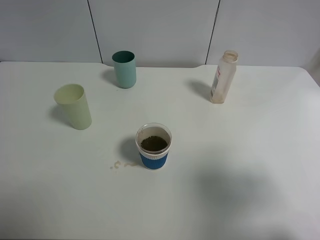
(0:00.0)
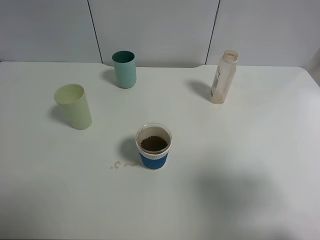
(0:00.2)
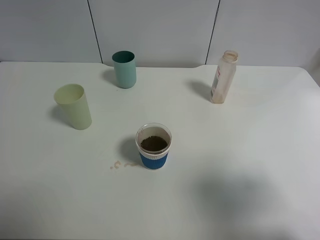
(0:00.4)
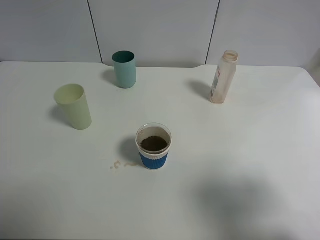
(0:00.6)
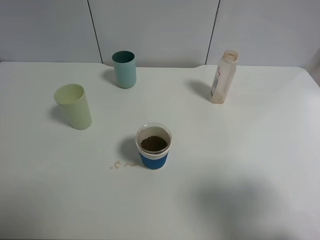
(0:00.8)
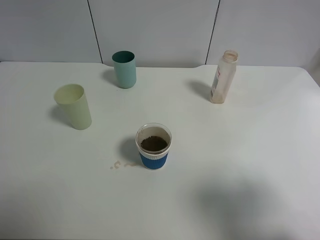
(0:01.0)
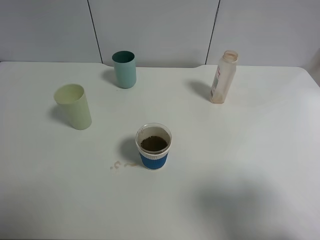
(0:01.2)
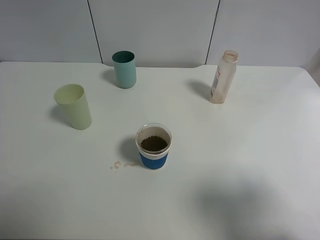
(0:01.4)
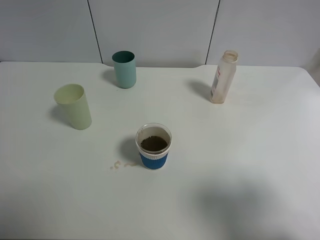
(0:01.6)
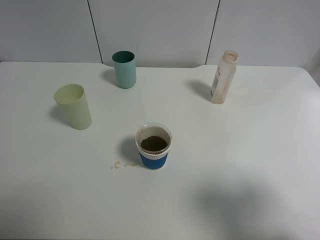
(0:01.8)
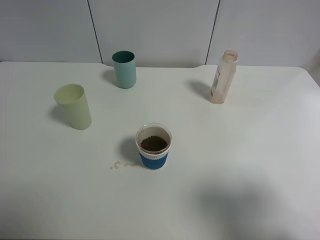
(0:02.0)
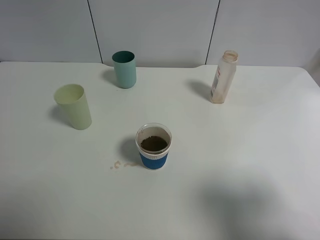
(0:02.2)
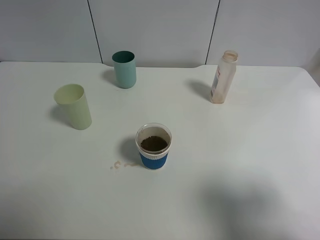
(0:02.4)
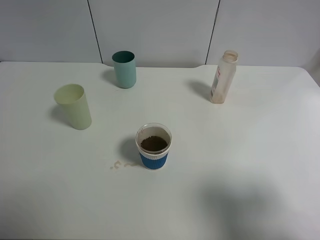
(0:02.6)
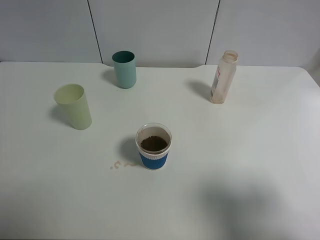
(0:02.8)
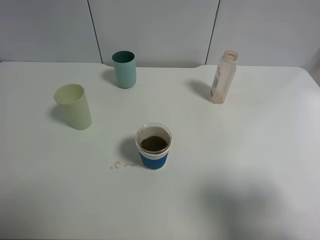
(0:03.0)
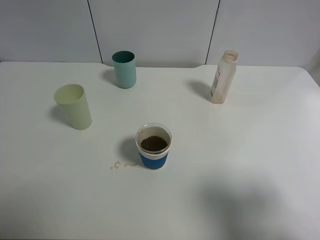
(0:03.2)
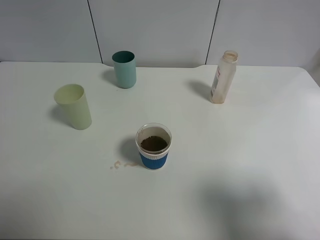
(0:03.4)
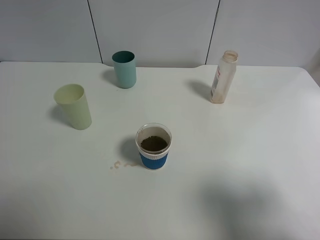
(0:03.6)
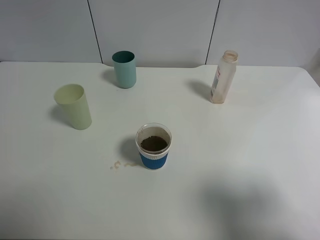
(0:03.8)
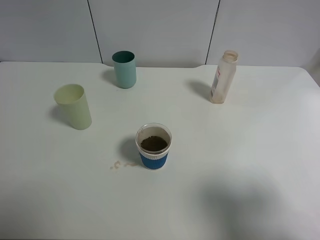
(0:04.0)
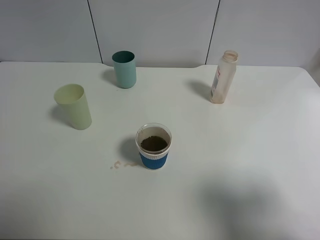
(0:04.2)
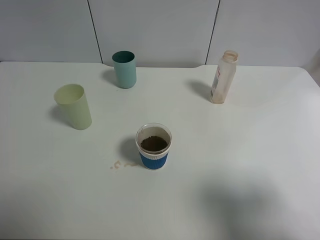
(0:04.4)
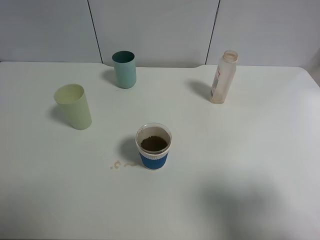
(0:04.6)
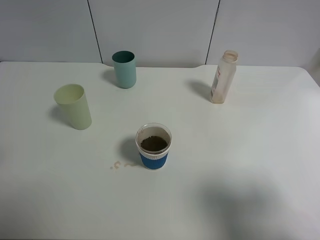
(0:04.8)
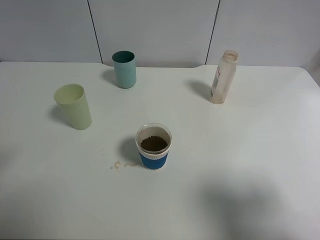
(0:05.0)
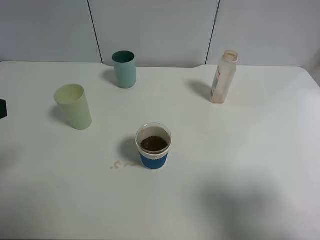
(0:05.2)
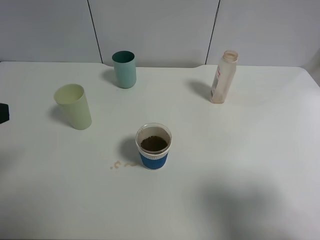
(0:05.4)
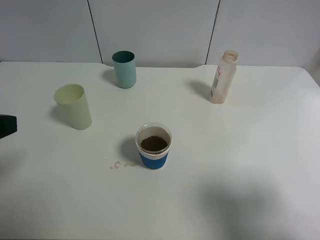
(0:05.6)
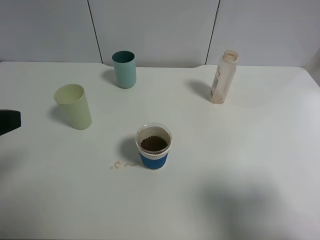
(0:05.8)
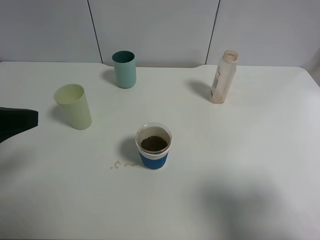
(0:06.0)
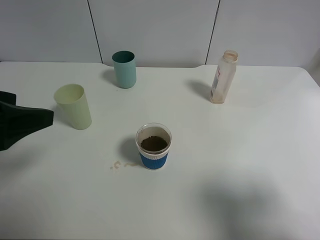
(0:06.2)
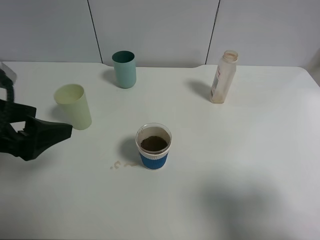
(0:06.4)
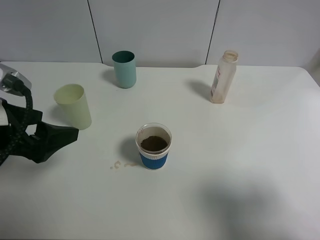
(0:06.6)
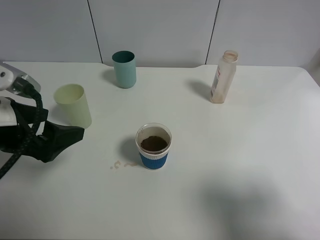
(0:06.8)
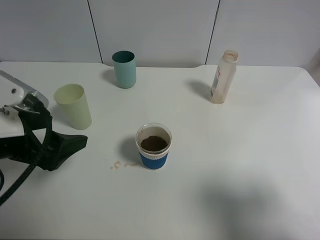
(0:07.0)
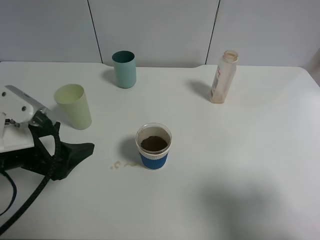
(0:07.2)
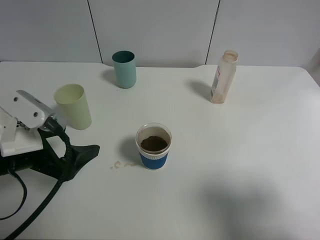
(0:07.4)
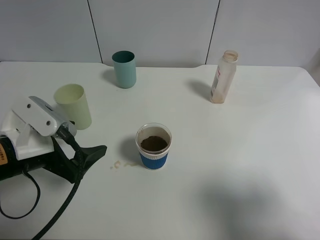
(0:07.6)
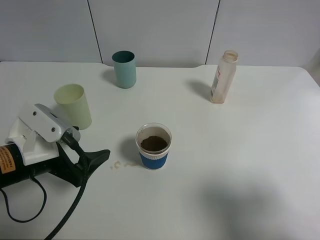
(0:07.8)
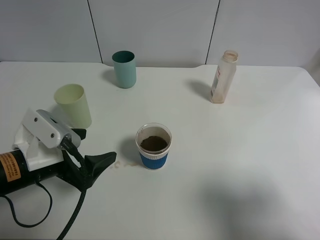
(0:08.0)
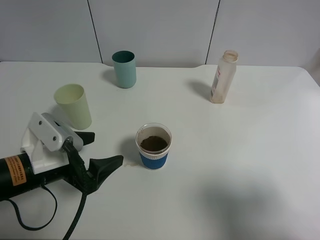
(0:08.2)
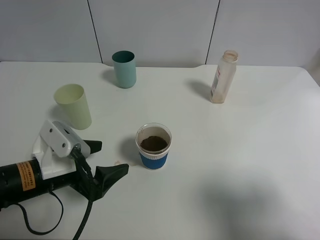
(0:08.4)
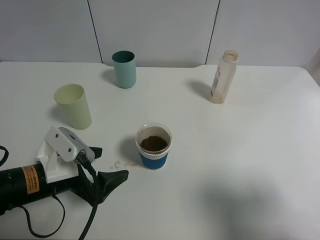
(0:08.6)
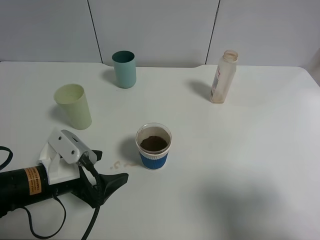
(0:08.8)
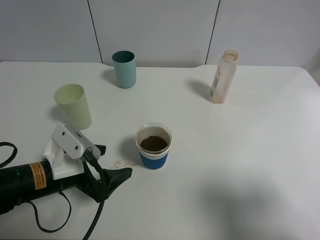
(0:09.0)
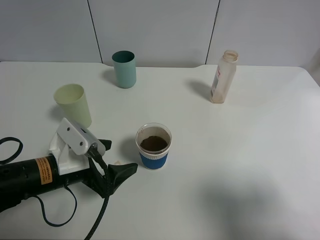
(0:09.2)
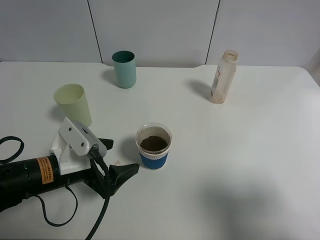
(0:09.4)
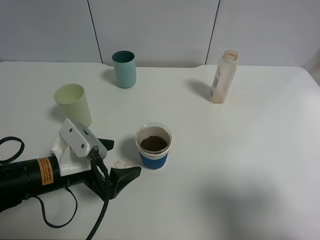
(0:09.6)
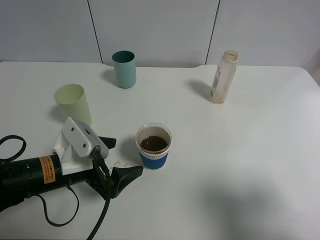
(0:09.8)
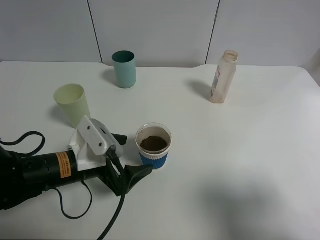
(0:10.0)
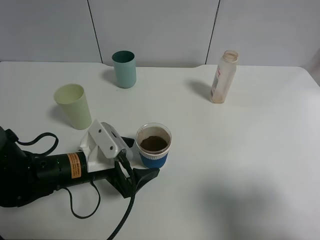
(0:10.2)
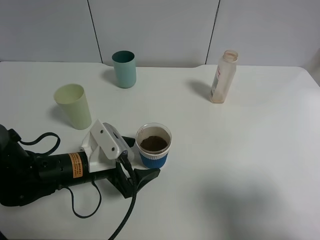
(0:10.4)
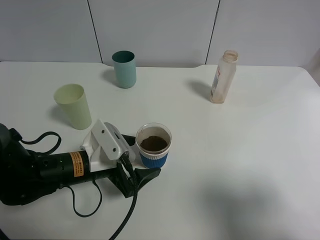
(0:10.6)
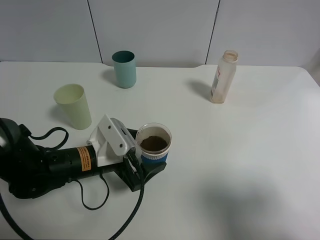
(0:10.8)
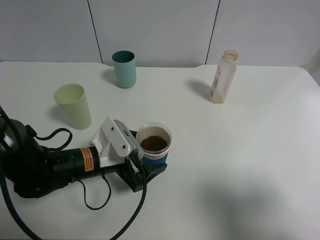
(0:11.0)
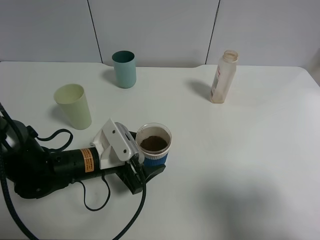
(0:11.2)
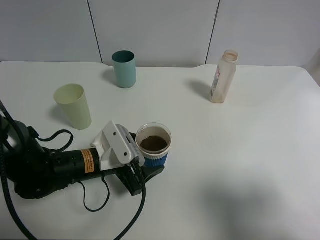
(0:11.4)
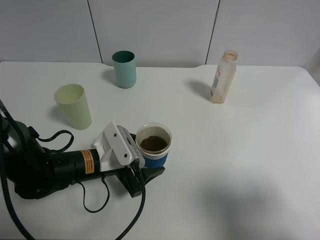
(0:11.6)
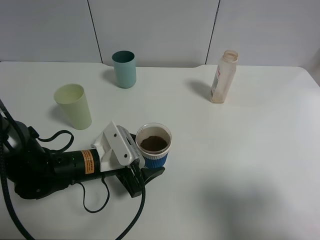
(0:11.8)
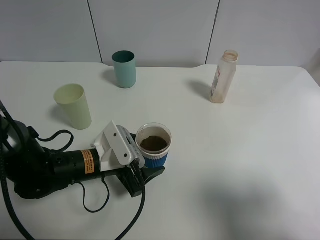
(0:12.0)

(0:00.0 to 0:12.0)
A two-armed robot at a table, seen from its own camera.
Task of the whole recording: use a clamp to hold the bottle of the drink, pour the beverage into a random cup, then clamp the cup containing the drink and pour the drink into another random cup.
0:00.0 - 0:01.6: The grippers make only small movements.
0:04.4 - 0:06.0: The left gripper travels forward by approximately 10 cm.
0:06.0 - 0:07.6: The left gripper goes approximately 15 cm downward and to the right.
0:07.6 - 0:09.0: The left gripper shifts about 5 cm downward.
0:09.0 - 0:10.4: The left gripper changes place by roughly 5 cm.
0:10.4 - 0:12.0: The left gripper closes up.

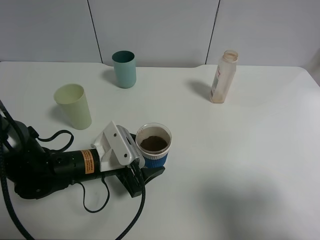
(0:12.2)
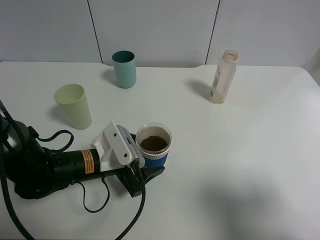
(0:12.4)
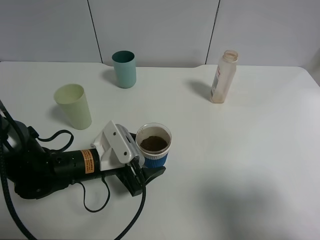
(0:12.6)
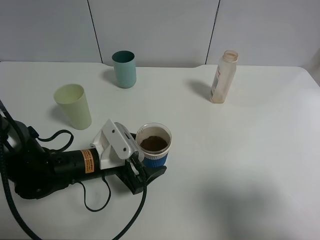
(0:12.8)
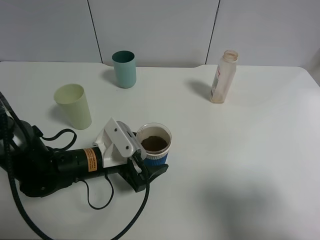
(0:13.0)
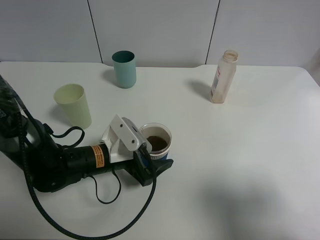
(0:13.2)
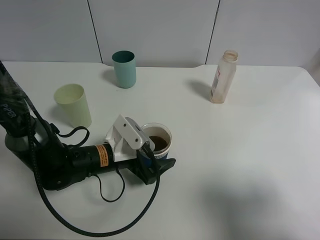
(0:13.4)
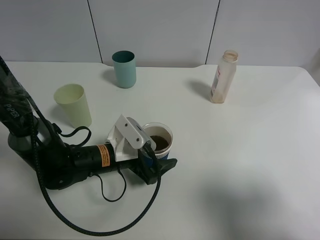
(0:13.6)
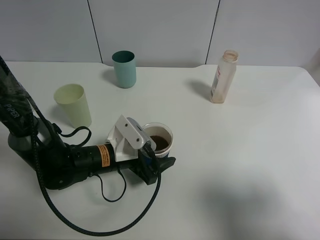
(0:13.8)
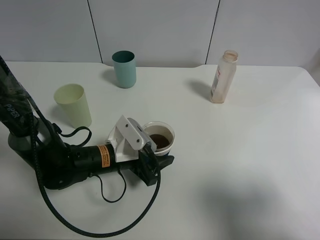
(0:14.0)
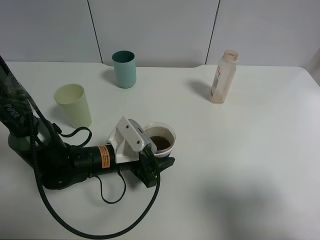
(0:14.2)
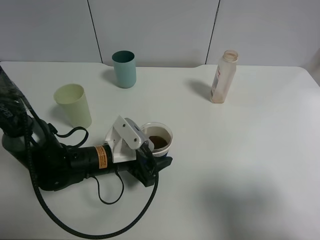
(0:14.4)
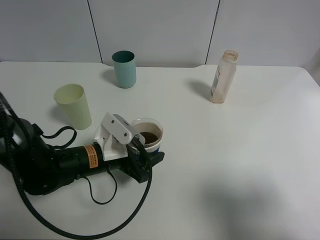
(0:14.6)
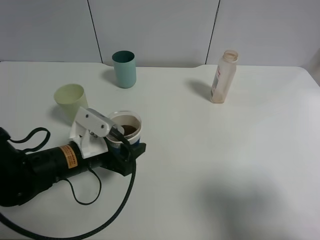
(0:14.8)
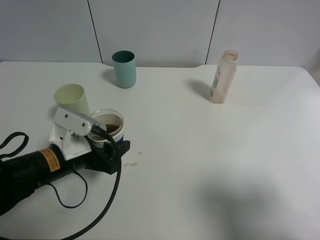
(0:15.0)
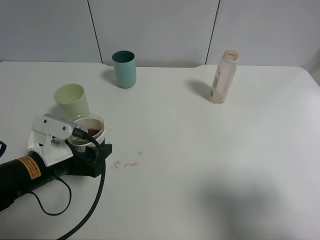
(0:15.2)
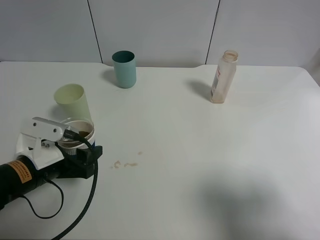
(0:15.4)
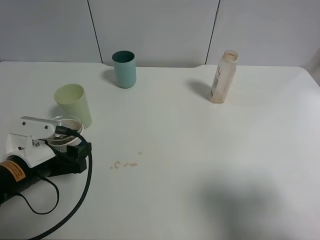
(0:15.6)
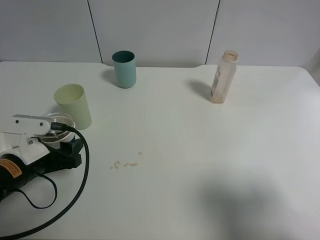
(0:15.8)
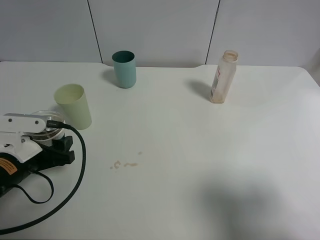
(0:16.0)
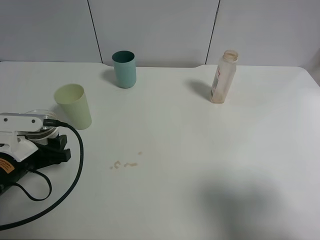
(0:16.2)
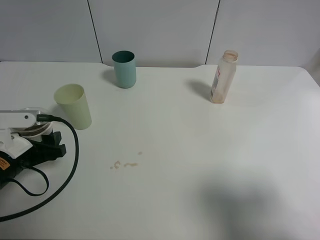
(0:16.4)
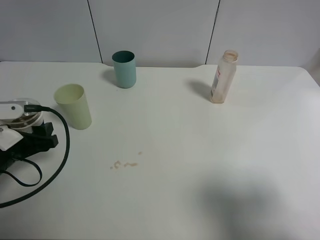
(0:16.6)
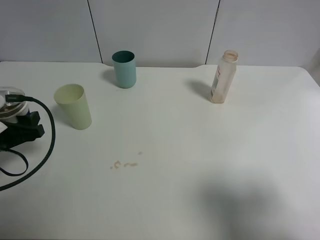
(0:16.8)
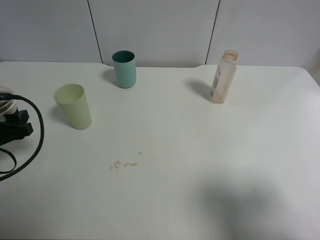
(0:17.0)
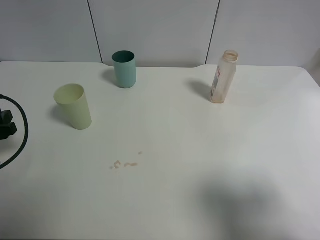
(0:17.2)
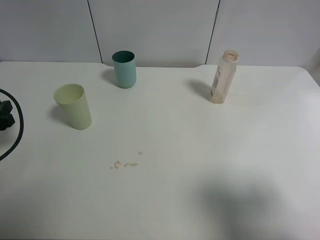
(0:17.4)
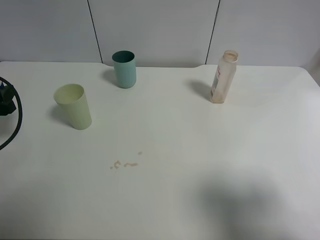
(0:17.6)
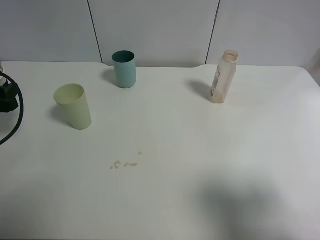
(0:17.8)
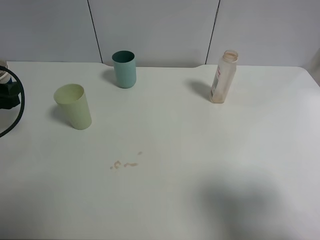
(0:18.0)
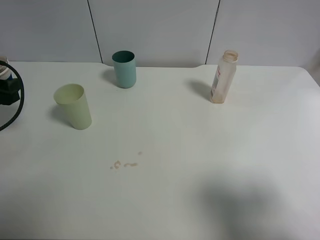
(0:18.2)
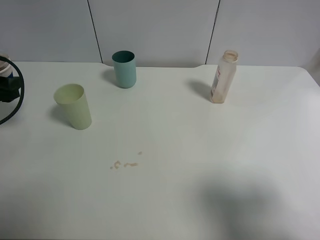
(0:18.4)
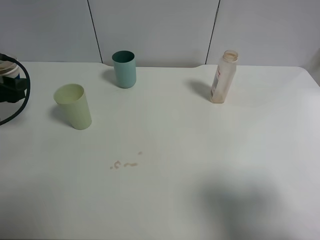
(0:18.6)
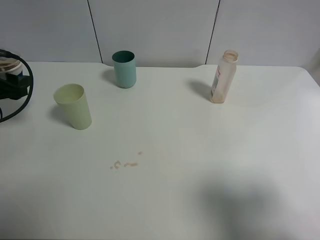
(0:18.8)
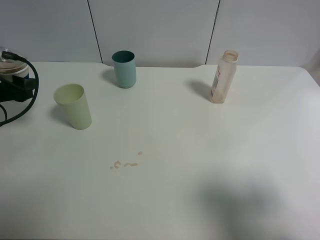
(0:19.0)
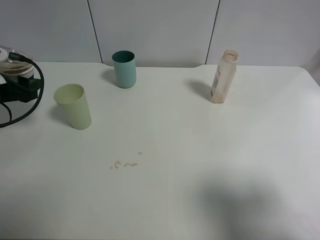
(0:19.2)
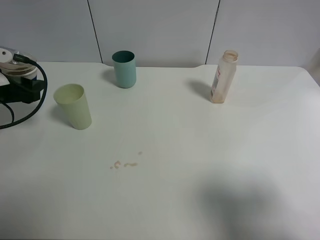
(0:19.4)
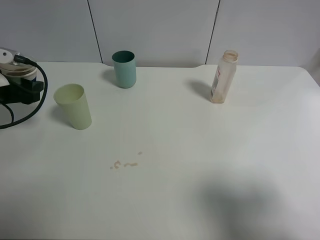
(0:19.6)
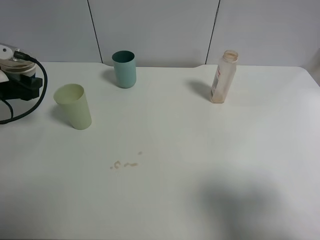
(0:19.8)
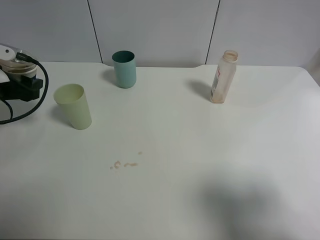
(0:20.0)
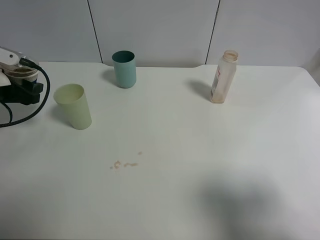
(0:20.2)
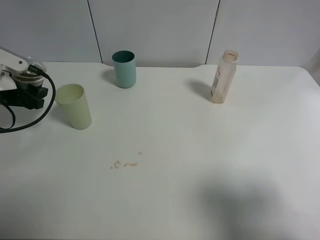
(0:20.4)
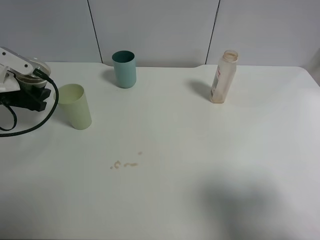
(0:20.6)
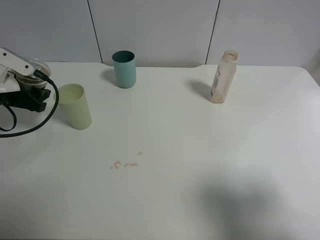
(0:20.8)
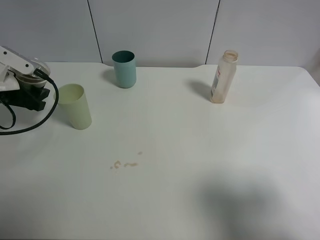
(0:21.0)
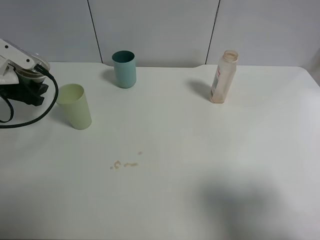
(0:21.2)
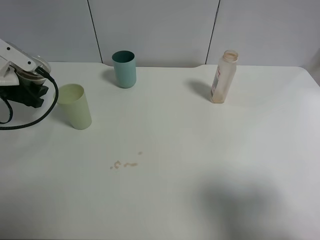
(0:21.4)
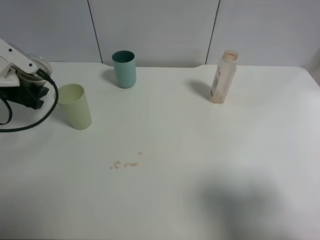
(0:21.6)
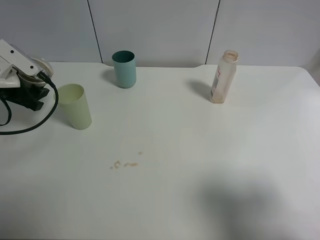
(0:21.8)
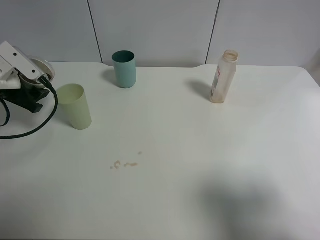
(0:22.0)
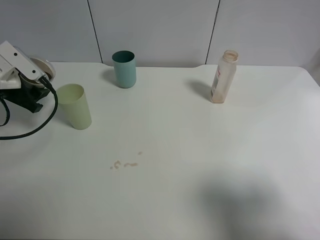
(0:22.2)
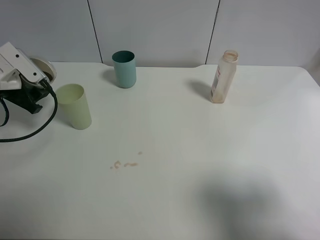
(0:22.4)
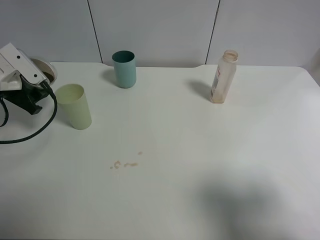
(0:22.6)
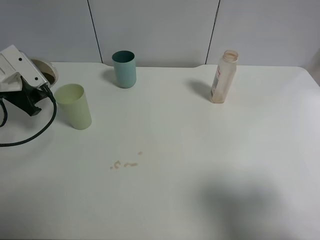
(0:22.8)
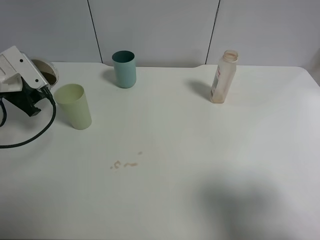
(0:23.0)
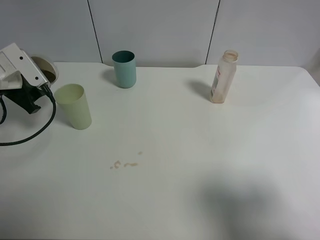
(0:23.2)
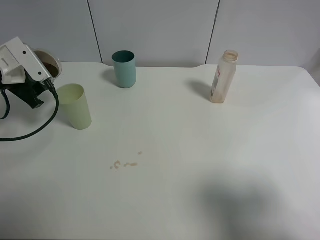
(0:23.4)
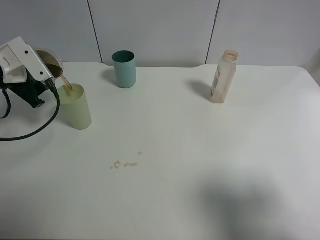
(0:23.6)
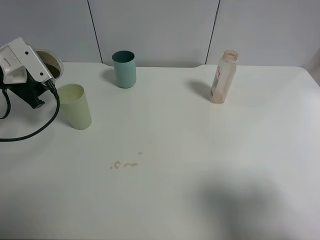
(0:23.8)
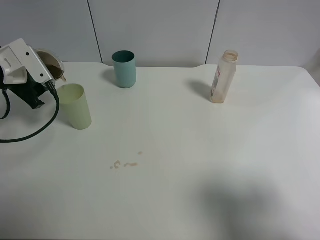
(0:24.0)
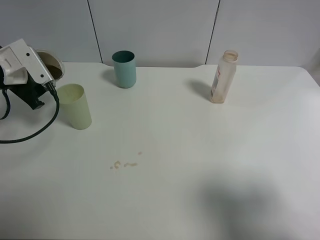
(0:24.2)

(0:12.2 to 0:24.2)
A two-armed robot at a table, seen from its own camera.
Task of the whole recording: use a clamp to hold the bottle of the drink, pour the beverage into a random cup, then clamp the cup containing the drink and pour the drink into another random cup.
Step, 0:12.2 - 0:14.6: Pick up the paper cup with left gripper.
0:12.2 - 0:13.8: The left gripper opens and closes again.
0:13.8 - 0:15.2: The left gripper goes some 10 cm to the left and backward, and closes its fingers.
0:15.2 - 0:16.6: The left gripper is displaced to the left by about 10 cm.
0:16.6 - 0:18.2: The left gripper goes some 10 cm to the left and forward.
0:18.2 - 0:19.8: The grippers stay close to where they were, moving slightly.
0:19.8 - 0:21.2: The grippers move only a little.
0:21.2 - 0:22.6: The grippers move only a little.
0:22.6 - 0:24.2: The grippers move only a little.
